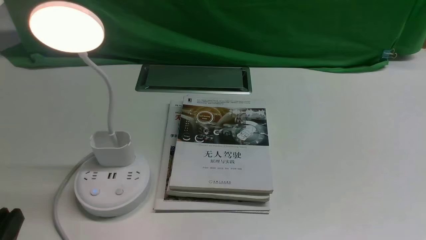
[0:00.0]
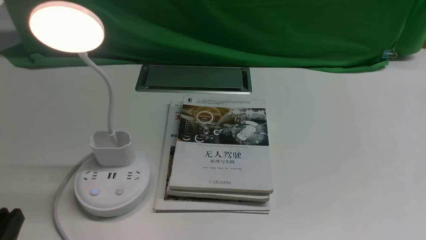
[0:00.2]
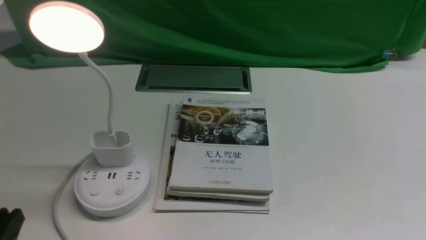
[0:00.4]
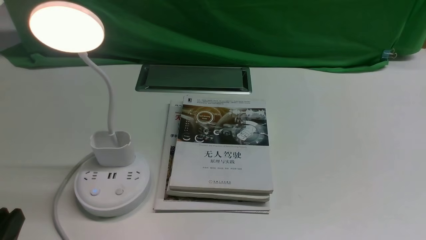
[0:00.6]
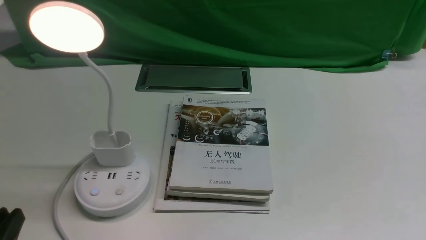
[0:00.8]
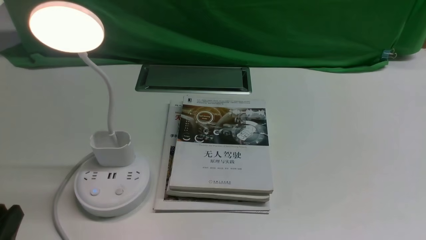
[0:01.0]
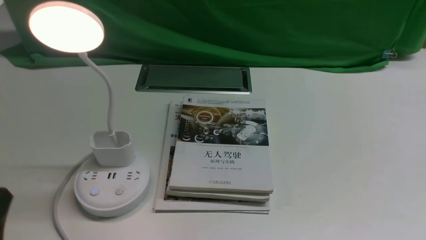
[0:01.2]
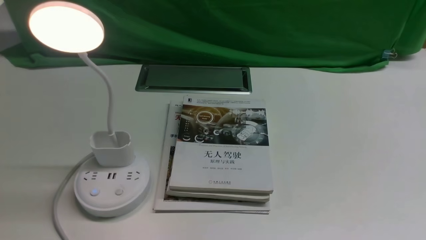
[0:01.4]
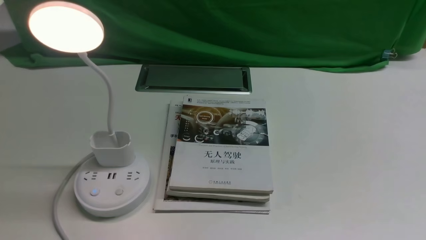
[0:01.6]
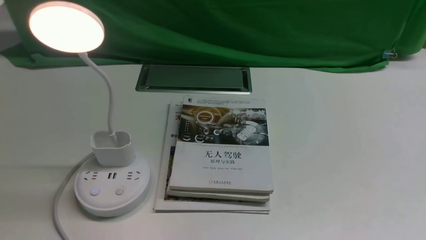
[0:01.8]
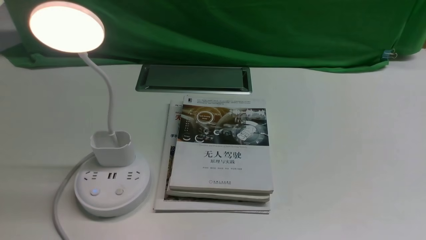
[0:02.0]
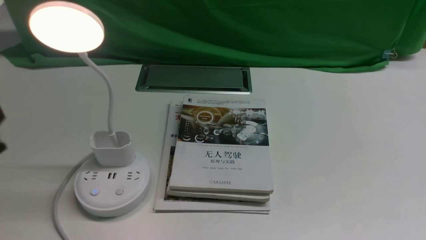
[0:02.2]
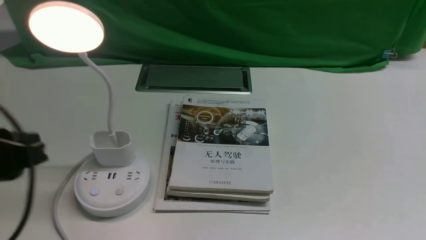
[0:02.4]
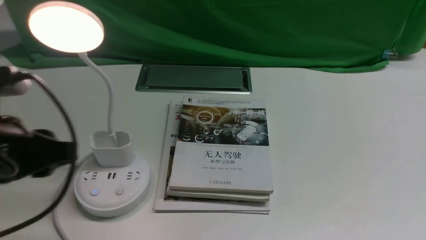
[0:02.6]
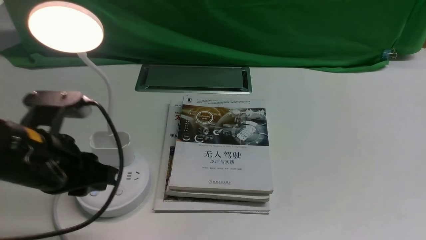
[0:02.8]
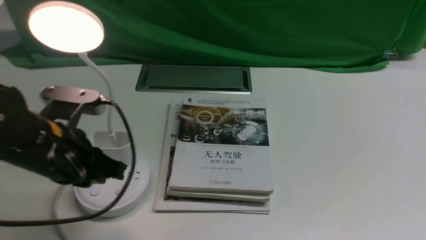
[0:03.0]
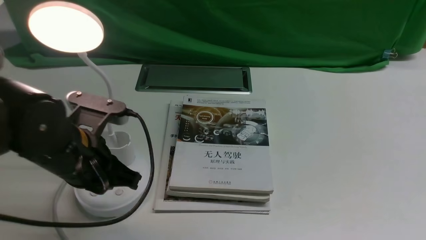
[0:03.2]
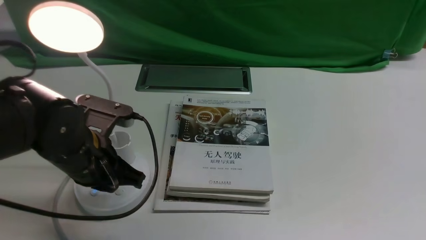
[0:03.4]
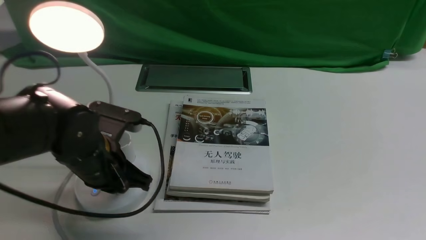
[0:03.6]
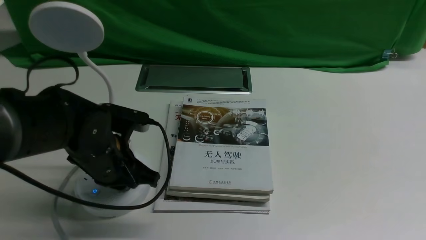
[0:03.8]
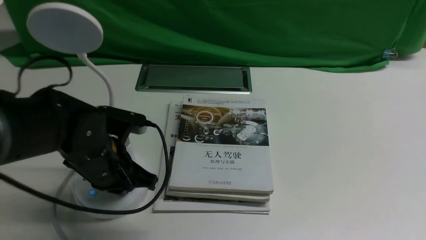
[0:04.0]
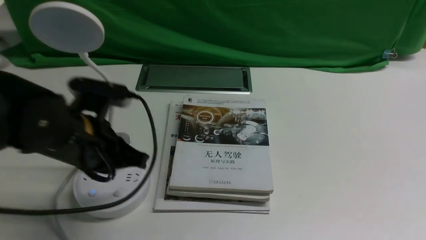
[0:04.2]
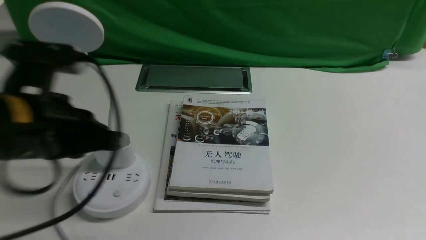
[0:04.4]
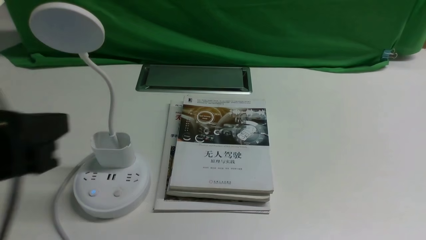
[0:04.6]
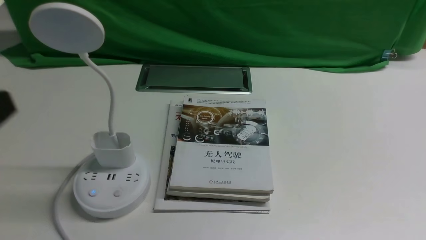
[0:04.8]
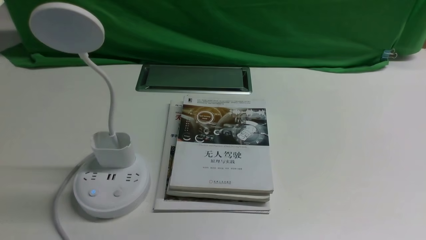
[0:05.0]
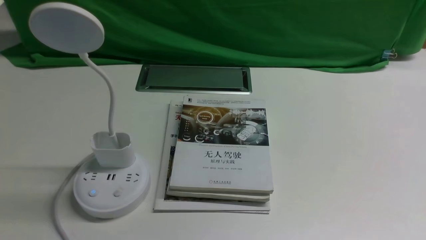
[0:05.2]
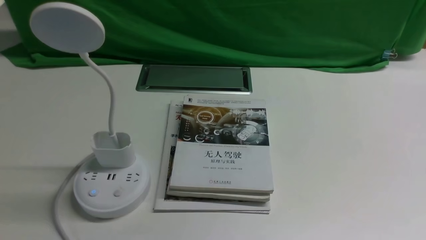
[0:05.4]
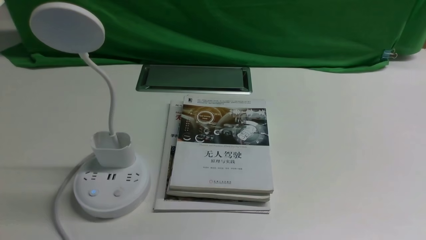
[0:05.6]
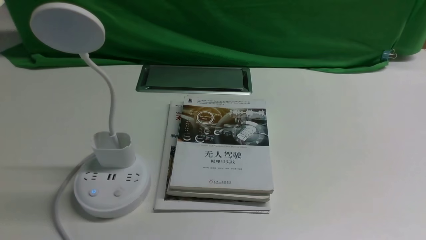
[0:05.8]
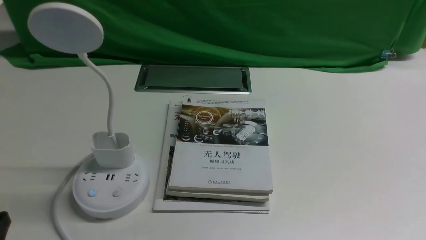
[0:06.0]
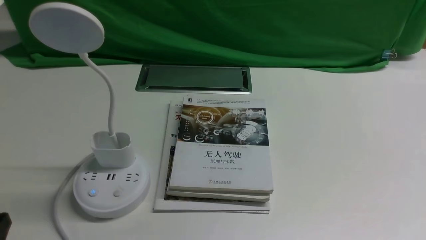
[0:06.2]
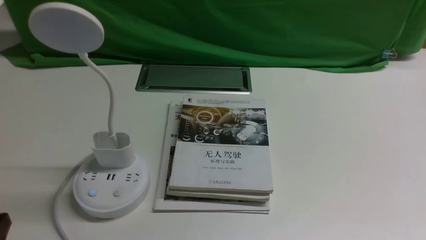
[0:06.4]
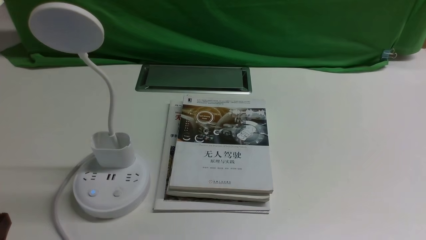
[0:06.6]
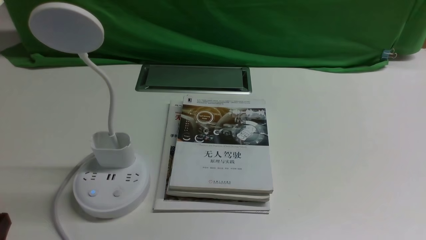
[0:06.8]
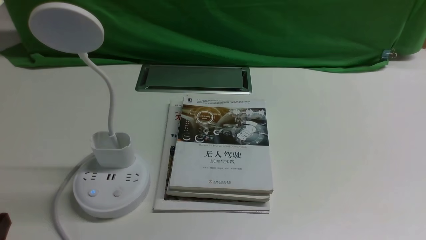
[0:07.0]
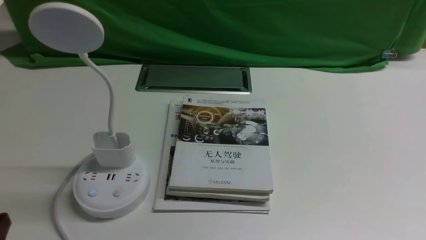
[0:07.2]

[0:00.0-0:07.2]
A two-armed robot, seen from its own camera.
Task of the whole recording: turn off the desk lamp on the white desktop by hand.
Step, 0:00.0 to 0:04.2: use the left arm to press the button switch on the lamp holder.
0:01.4 to 0:02.8: The left gripper moves forward, about 15 cm.
0:02.8 to 0:04.4: The left gripper moves about 10 cm downward and comes back, and closes.
0:04.4 to 0:05.8: The left gripper moves backward and to the left, roughly 20 cm.

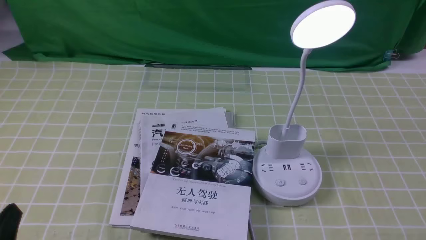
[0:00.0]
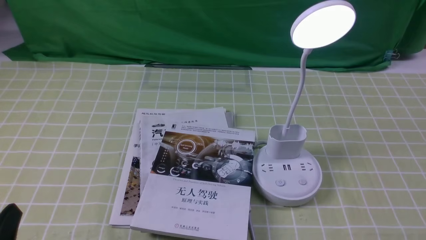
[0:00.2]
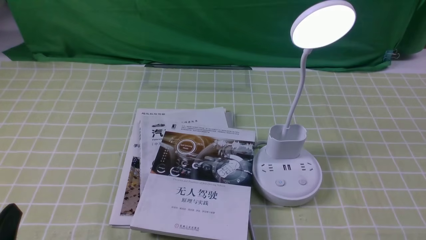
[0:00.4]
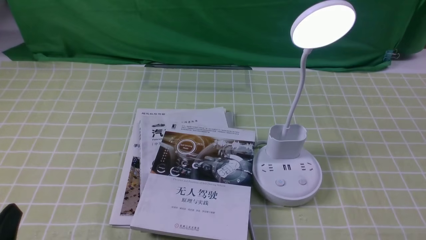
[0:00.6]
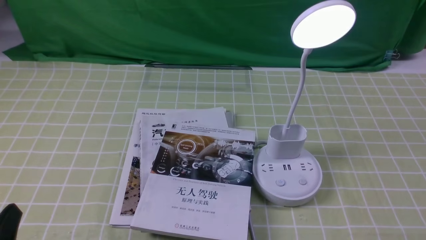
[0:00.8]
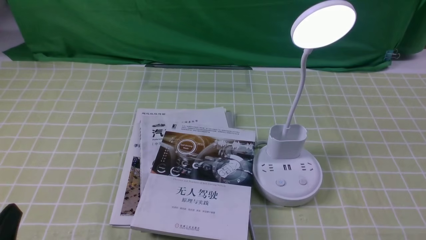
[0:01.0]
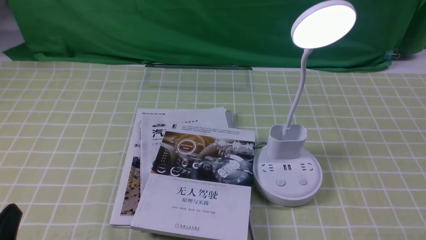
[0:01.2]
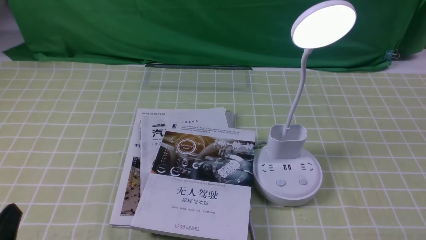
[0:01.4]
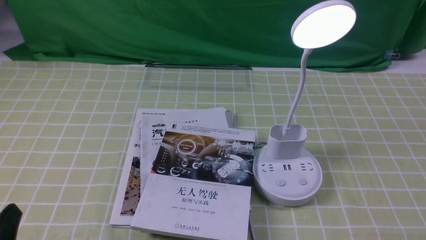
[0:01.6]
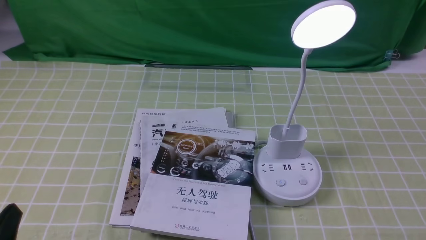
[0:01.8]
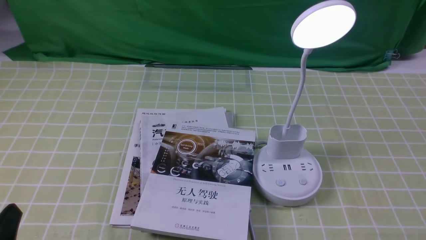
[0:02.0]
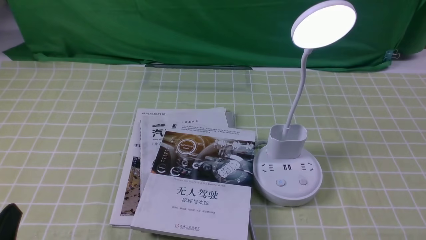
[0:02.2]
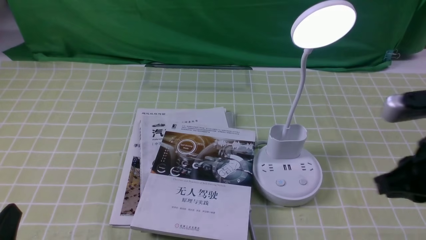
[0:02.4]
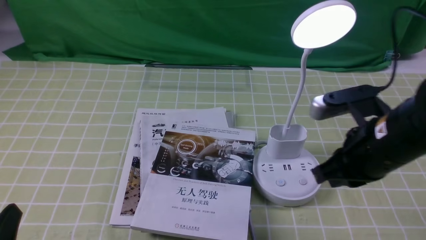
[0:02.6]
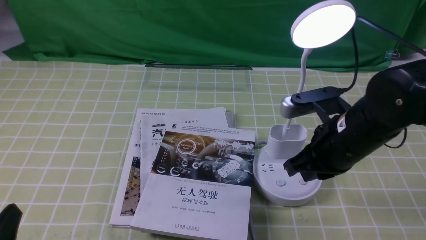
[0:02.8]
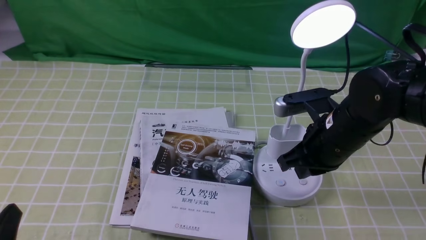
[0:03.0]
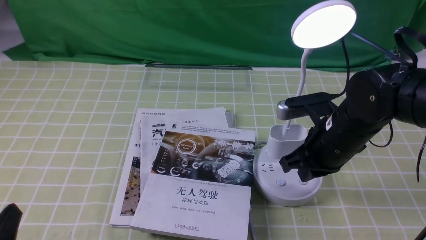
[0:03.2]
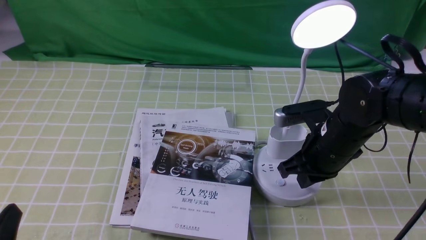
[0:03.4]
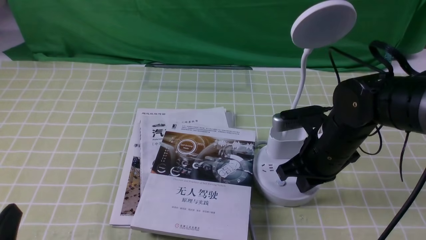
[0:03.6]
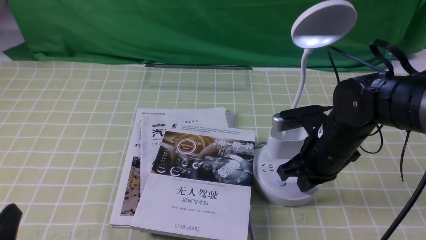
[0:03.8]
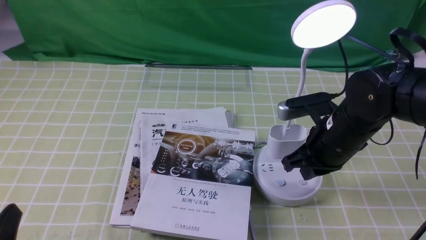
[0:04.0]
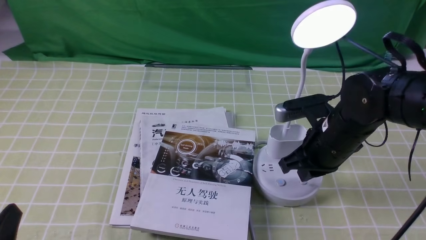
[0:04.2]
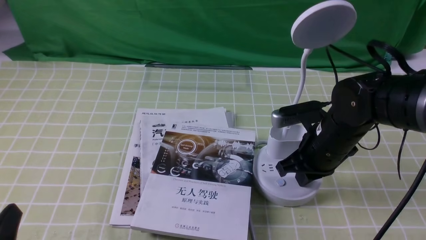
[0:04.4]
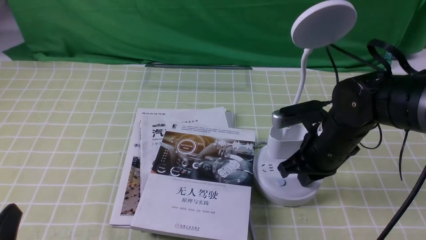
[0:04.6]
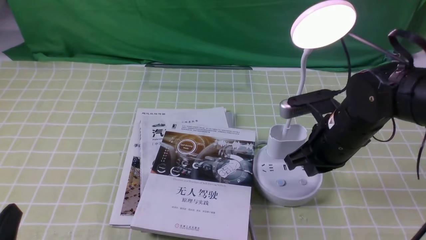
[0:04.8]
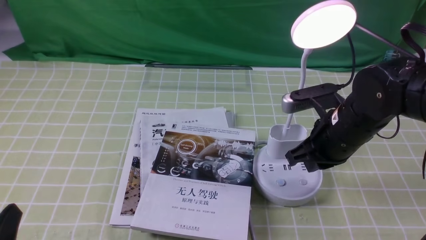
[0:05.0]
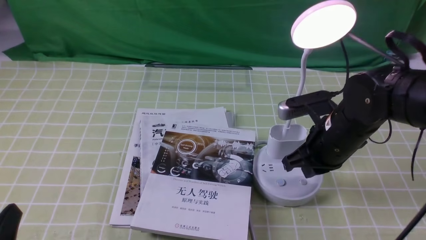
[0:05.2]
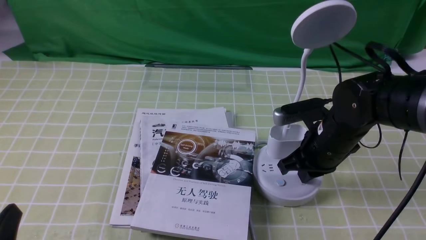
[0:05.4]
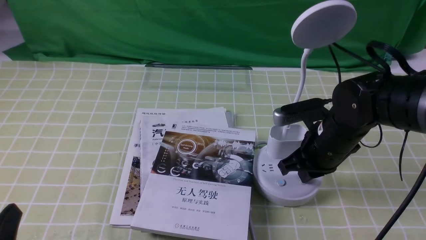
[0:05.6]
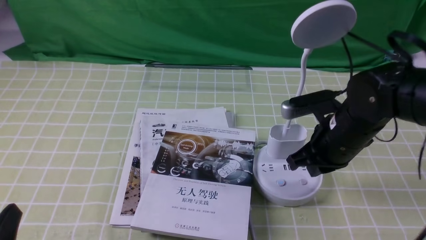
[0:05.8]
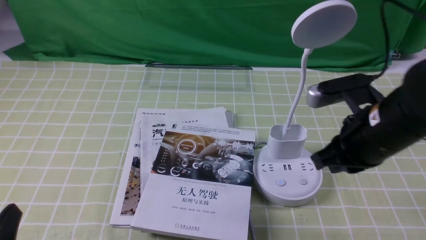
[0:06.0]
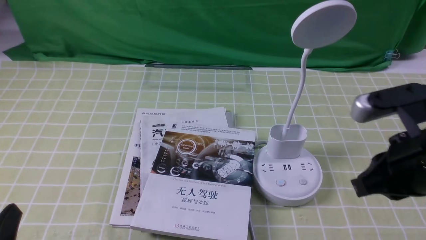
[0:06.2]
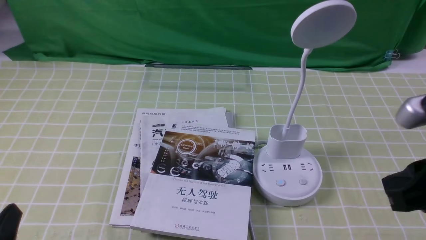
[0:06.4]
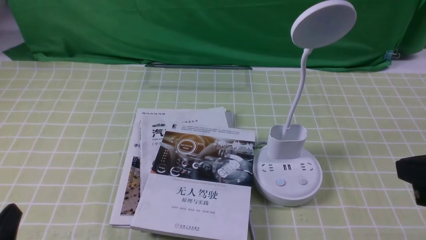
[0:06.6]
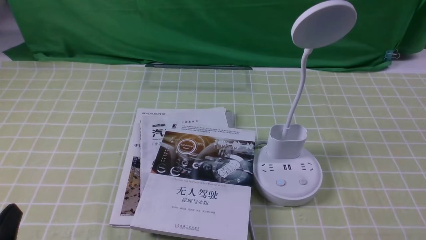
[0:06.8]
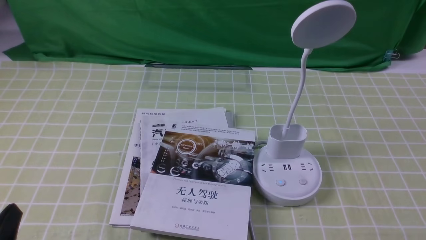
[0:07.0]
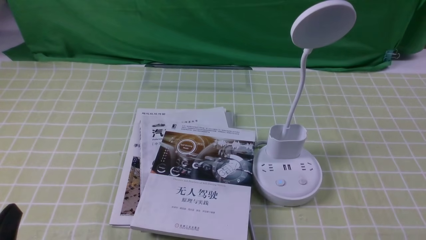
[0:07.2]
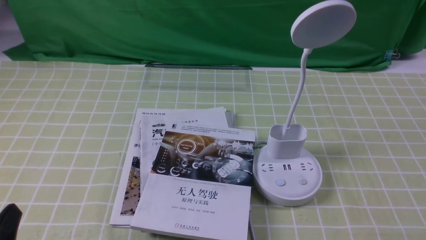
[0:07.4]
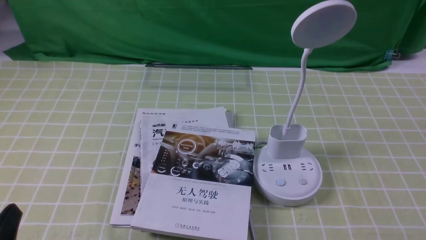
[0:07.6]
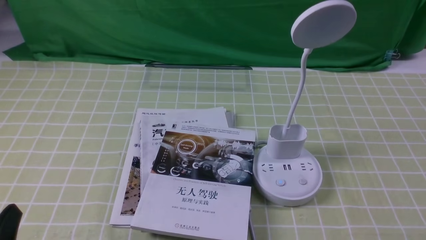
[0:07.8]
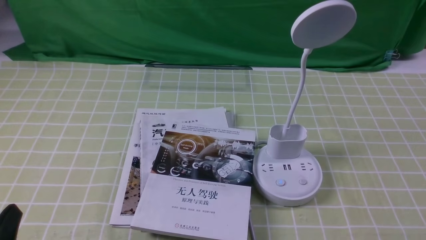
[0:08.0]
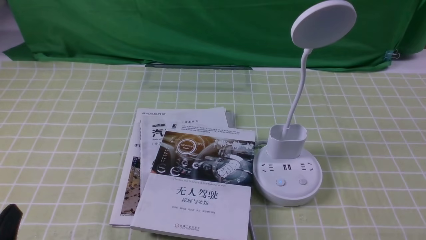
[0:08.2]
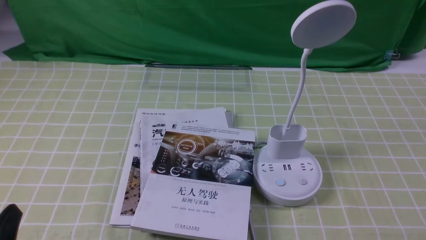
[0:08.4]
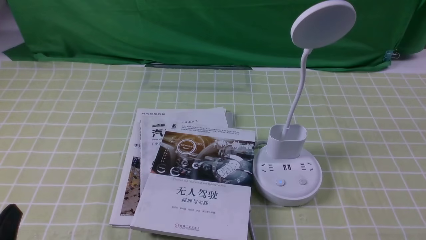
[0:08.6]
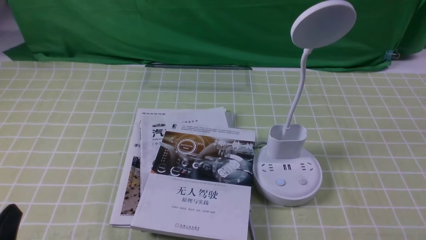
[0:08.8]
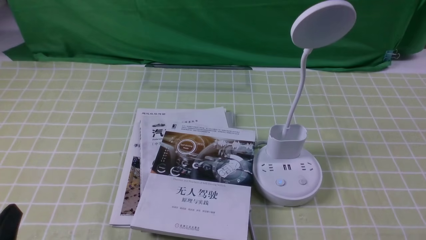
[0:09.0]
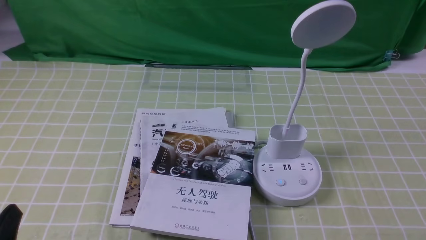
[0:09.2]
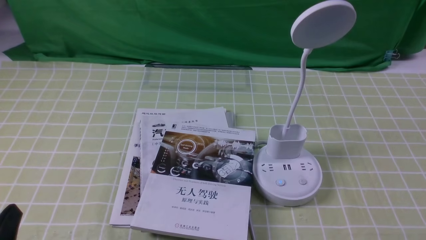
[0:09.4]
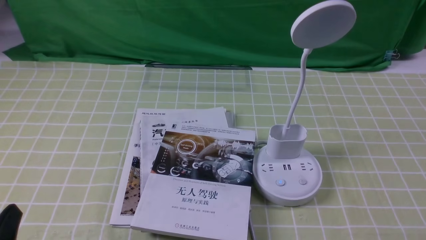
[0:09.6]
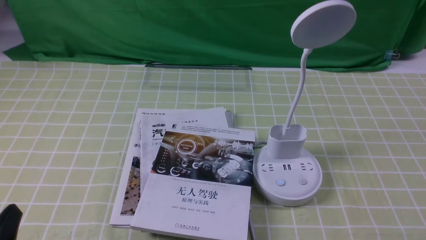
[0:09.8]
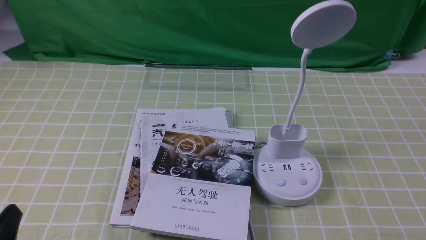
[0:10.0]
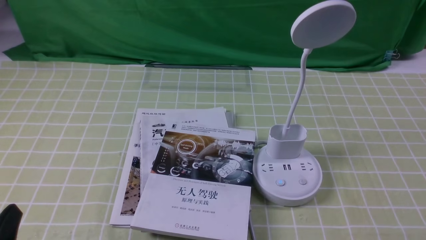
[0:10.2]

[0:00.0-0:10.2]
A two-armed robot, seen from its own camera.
Task of the whole recording: turn off the desk lamp on the green coffee tablecloth by hand.
Step, 0:00.0 to 0:06.0: use the right arm to press the button switch on the lamp holder.
0:01.4 to 0:03.0: The right gripper goes approximately 30 cm forward and to the left, and closes its fingers.
0:03.0 to 0:05.8: The grippers stay close to where they were, moving slightly.
0:05.8 to 0:07.2: The right gripper shifts roughly 30 cm backward and to the right.
